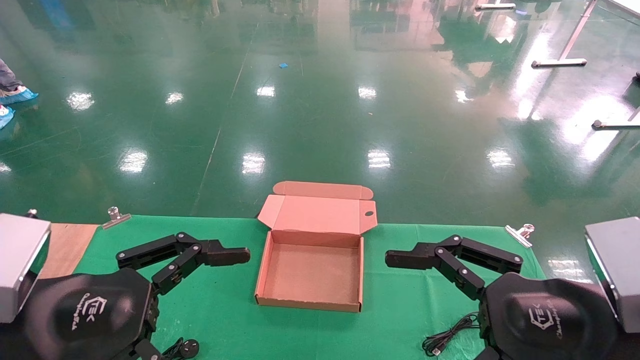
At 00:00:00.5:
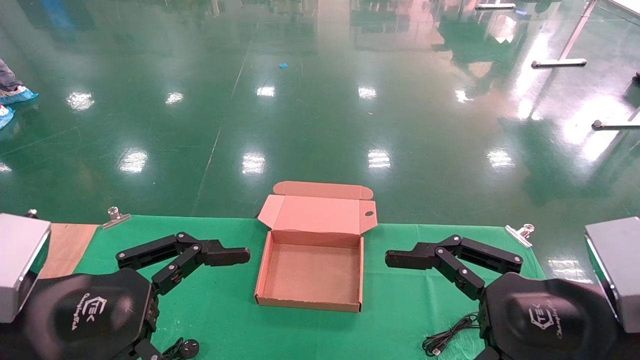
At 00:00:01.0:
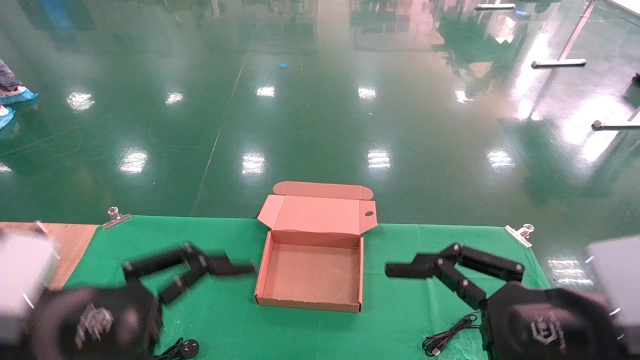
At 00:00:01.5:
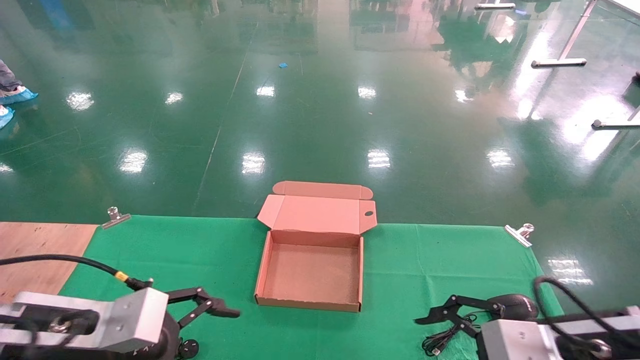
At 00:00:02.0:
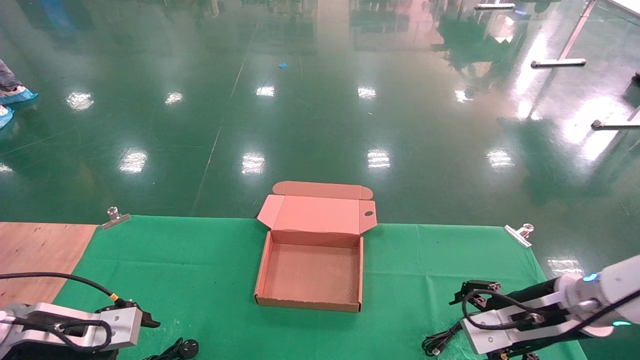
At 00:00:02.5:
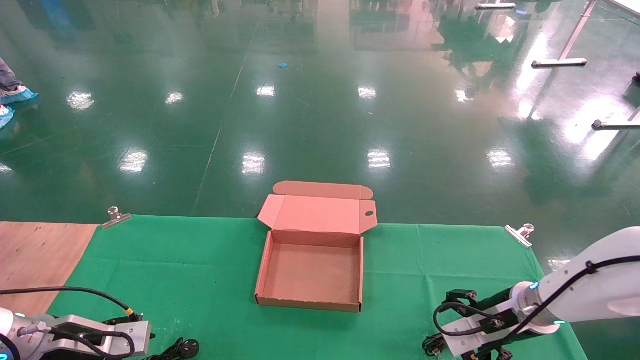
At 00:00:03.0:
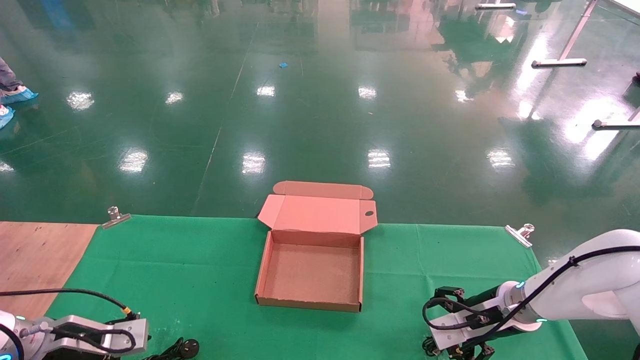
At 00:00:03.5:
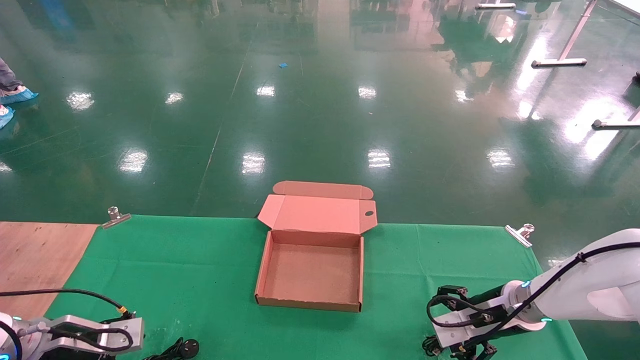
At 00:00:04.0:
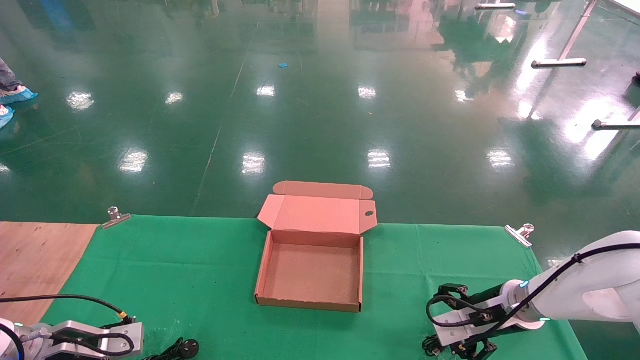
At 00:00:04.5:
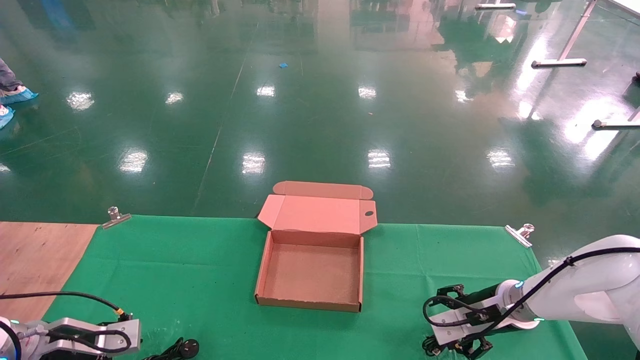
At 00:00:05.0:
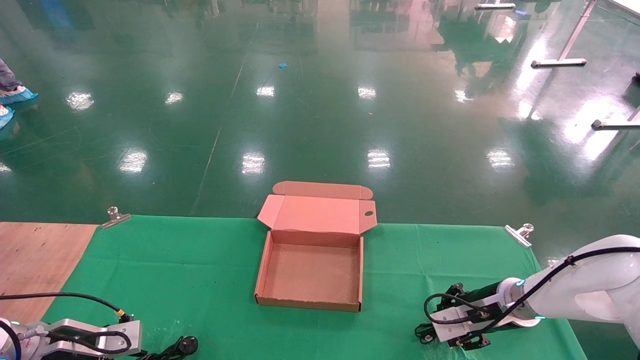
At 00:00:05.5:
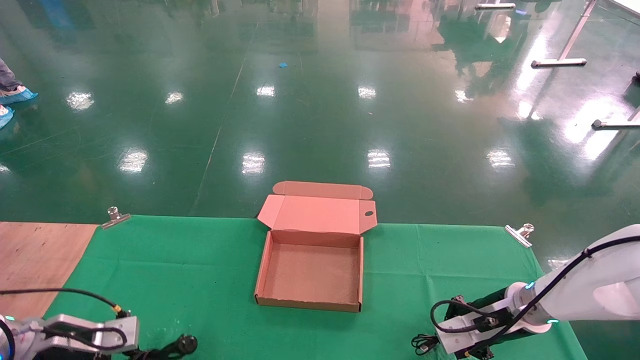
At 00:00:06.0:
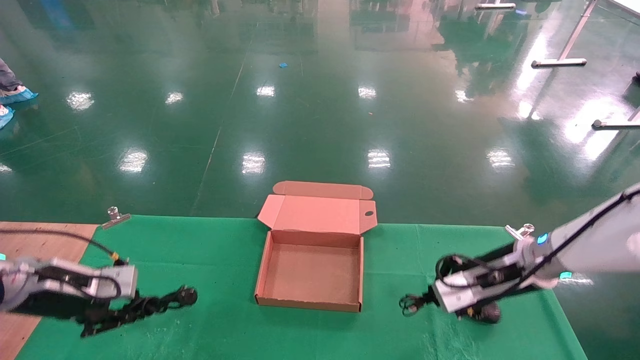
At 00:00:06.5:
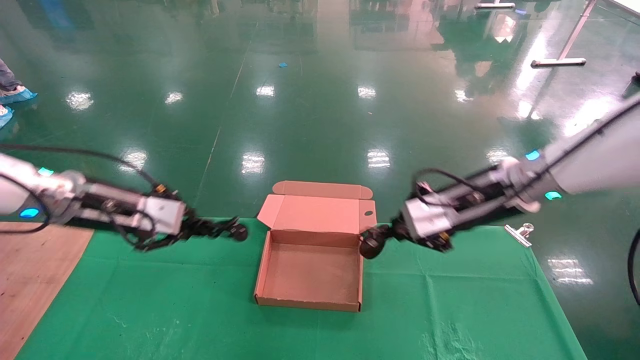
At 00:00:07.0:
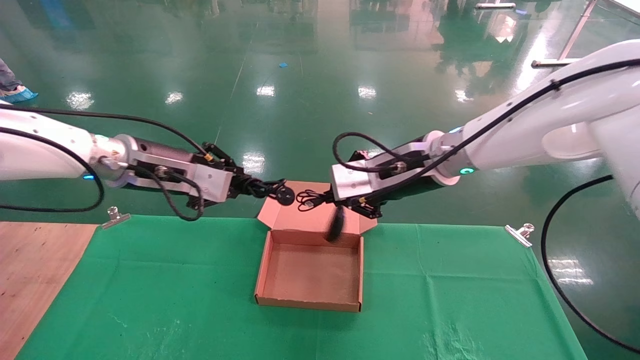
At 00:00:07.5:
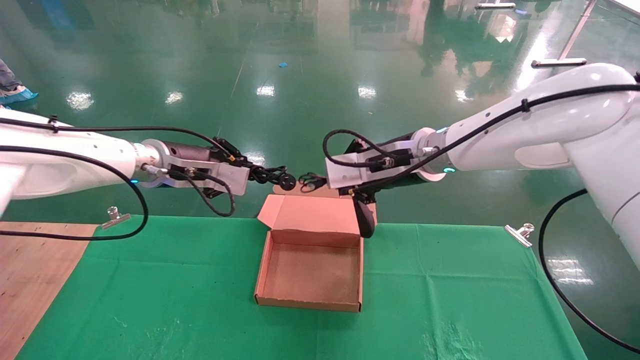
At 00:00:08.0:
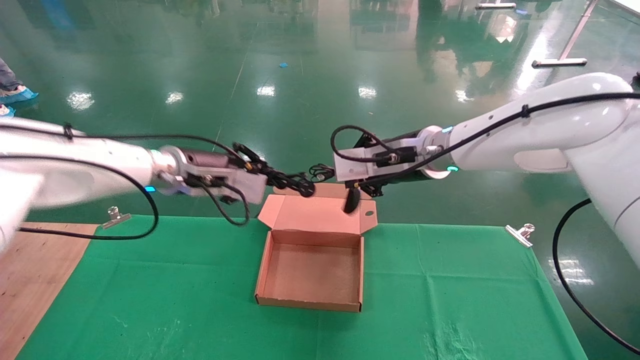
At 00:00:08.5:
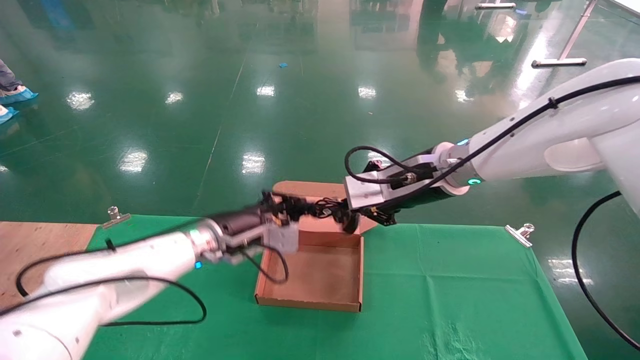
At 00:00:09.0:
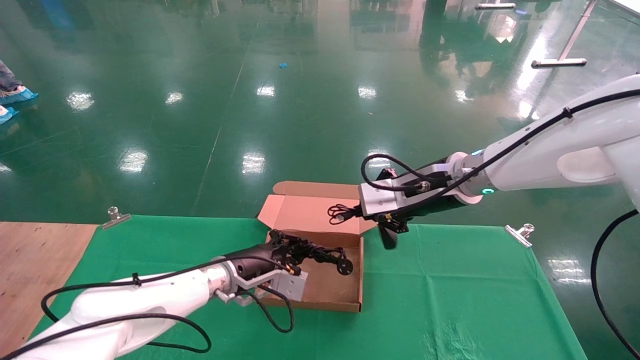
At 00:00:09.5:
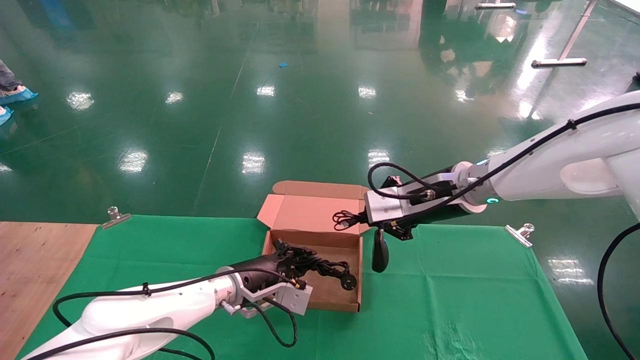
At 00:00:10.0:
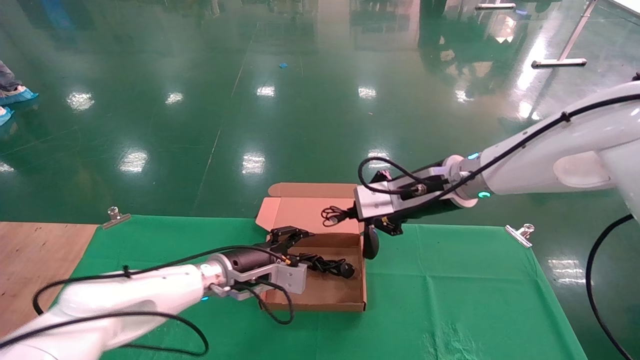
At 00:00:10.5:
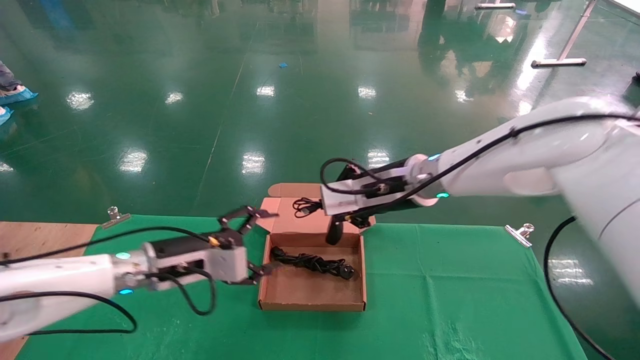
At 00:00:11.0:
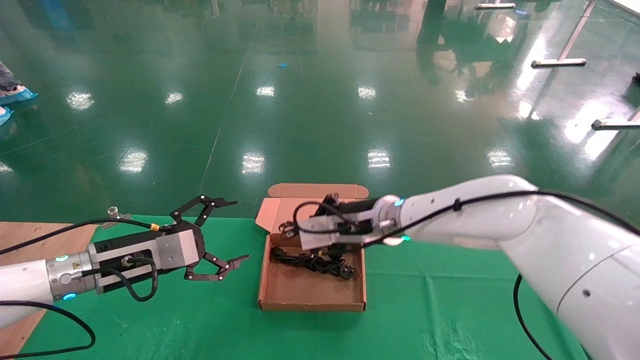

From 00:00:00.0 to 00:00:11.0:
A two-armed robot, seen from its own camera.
Step, from 00:00:01.5 to 00:00:06.0: Grab and lift both the mouse and power cord from the accessory packaging area at the same time.
From 00:00:00.0 to 00:00:02.0: The left gripper heads forward, downward and to the left, covering about 20 cm; the right gripper is displaced forward and downward by approximately 20 cm.
From 00:00:02.0 to 00:00:03.5: The right gripper shifts about 10 cm forward and downward. Meanwhile the left gripper goes some 10 cm downward and forward.
From 00:00:03.5 to 00:00:05.5: The left gripper closes its fingers. The right gripper closes up.
From 00:00:05.5 to 00:00:07.5: The right gripper travels upward and to the left by roughly 30 cm; the left gripper travels upward and to the right by roughly 30 cm.
From 00:00:07.5 to 00:00:09.0: The left gripper travels downward and to the right by approximately 20 cm; the right gripper changes place by approximately 5 cm.
From 00:00:09.0 to 00:00:11.0: The right gripper is displaced to the left and downward by about 10 cm. The left gripper heads to the left and backward, covering about 15 cm, and opens its fingers.

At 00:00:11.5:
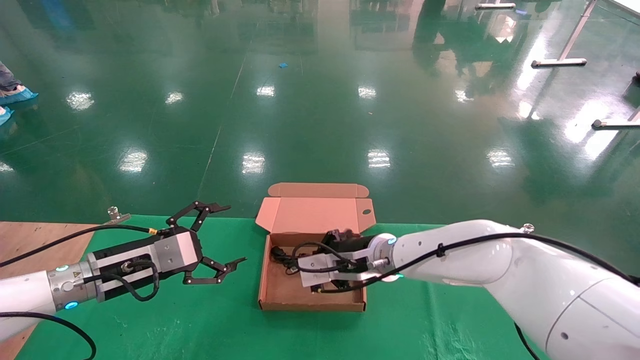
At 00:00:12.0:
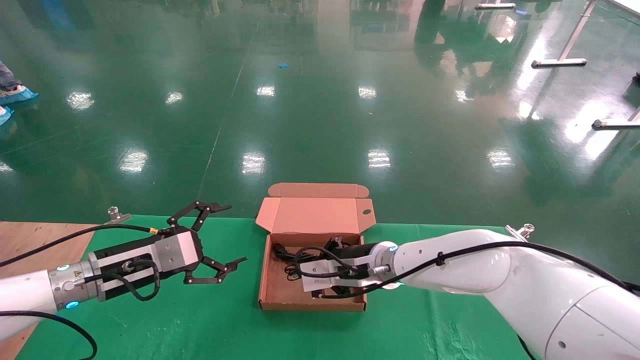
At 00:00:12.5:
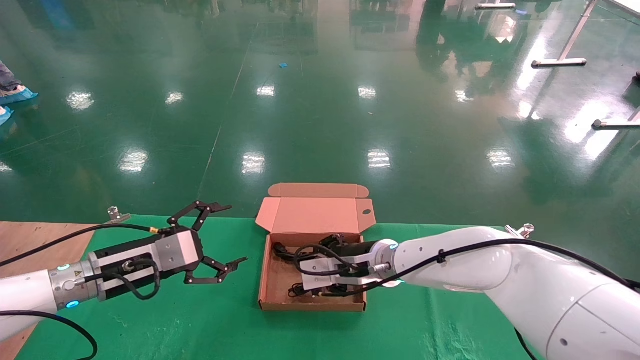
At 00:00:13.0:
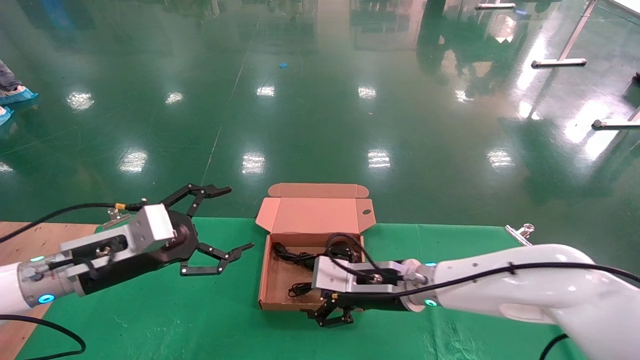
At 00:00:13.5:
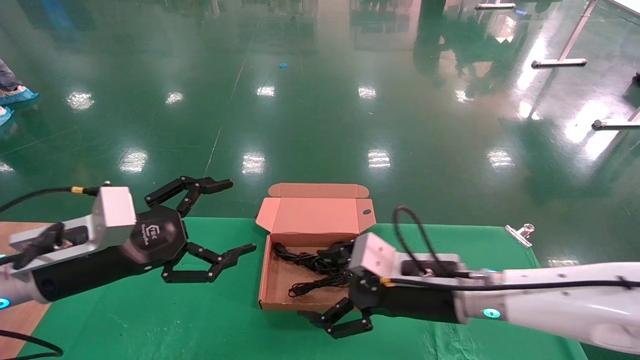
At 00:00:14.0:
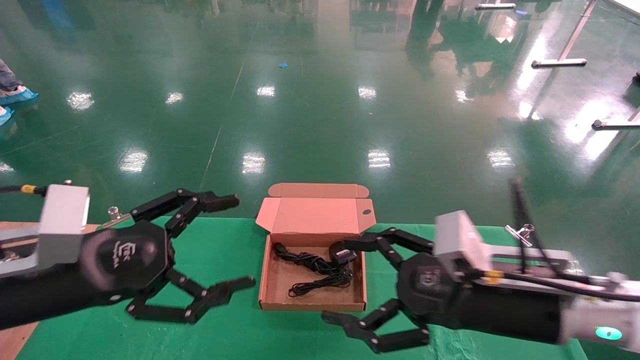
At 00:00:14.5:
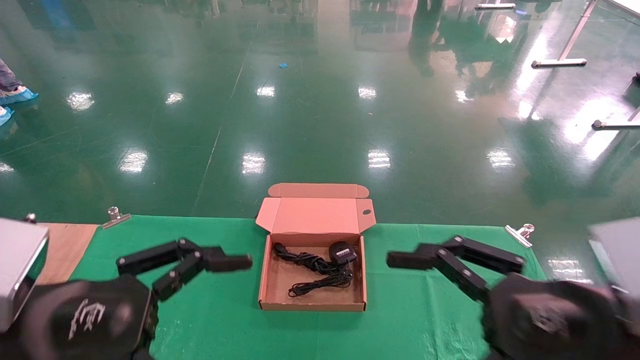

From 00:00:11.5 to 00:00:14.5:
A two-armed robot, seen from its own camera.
From 00:00:11.5 to 00:00:13.0: The right gripper shifts by some 5 cm, and opens. The left gripper moves about 5 cm.
From 00:00:13.0 to 00:00:14.5: The right gripper goes about 30 cm backward, to the right and upward. Meanwhile the left gripper travels backward by approximately 15 cm.

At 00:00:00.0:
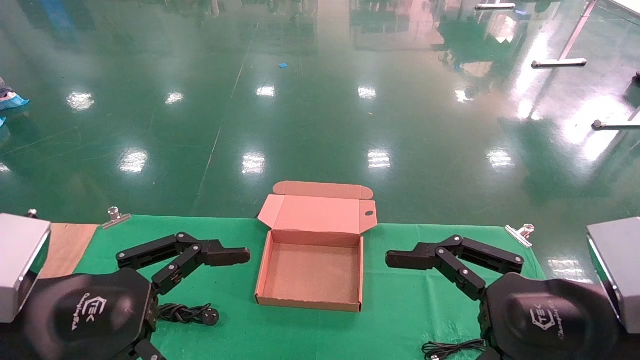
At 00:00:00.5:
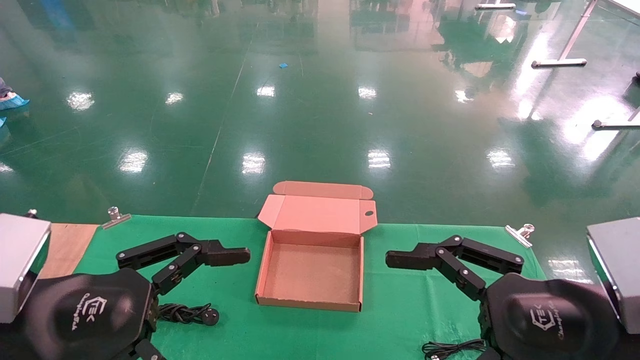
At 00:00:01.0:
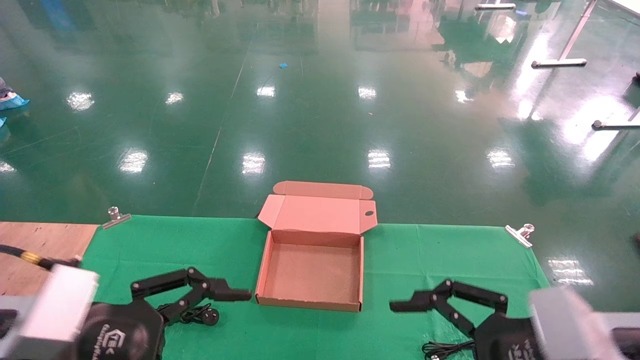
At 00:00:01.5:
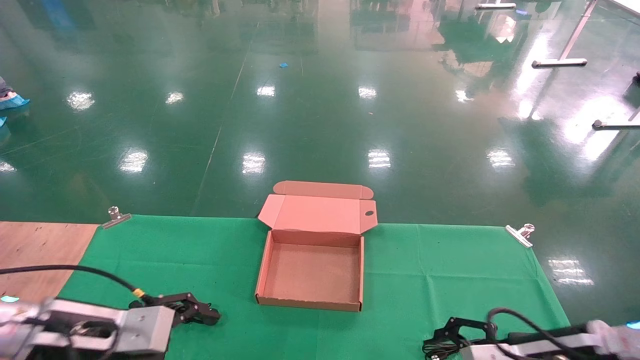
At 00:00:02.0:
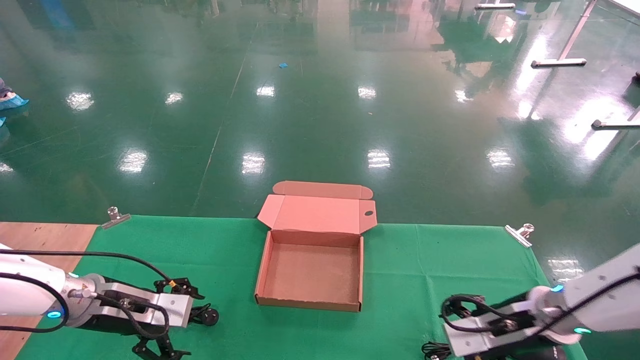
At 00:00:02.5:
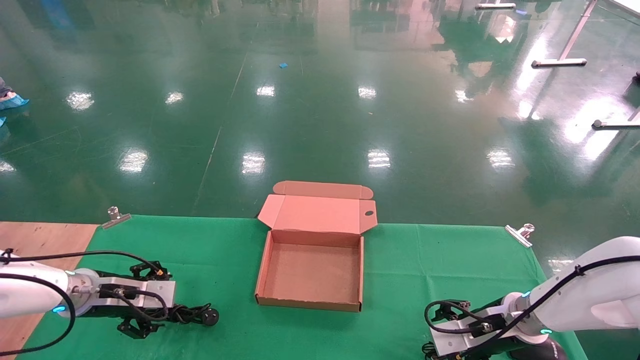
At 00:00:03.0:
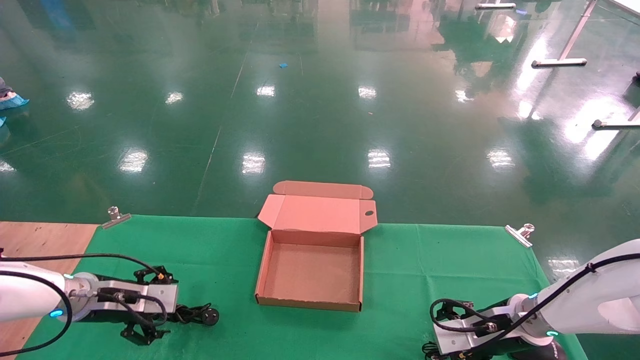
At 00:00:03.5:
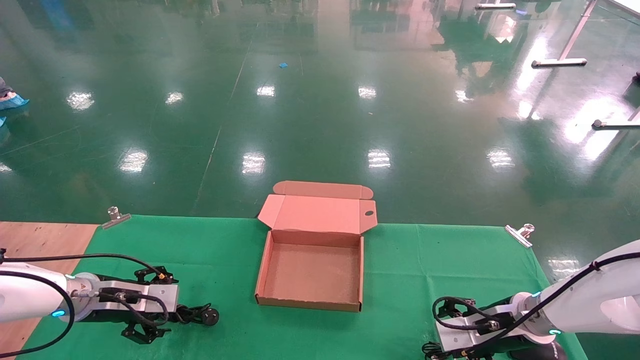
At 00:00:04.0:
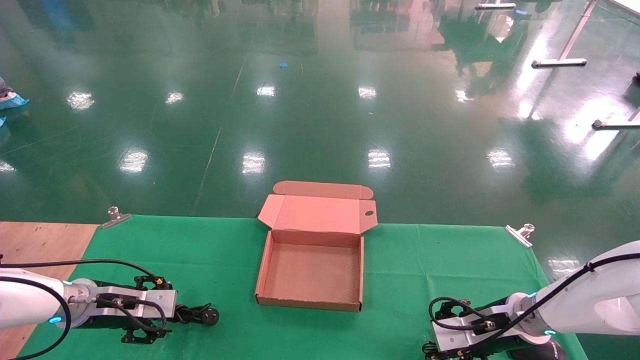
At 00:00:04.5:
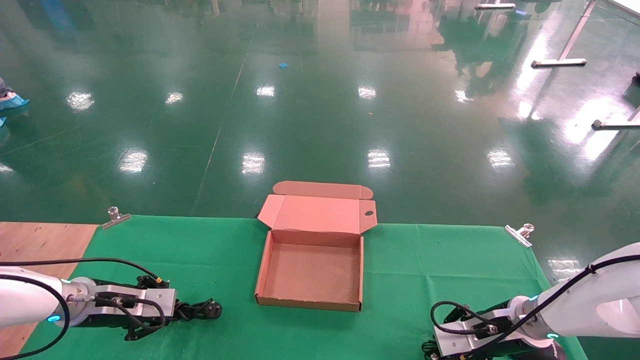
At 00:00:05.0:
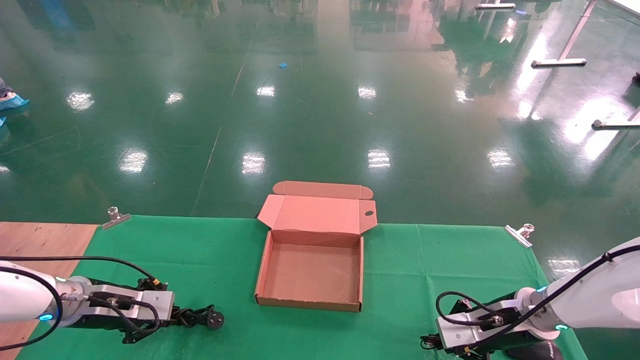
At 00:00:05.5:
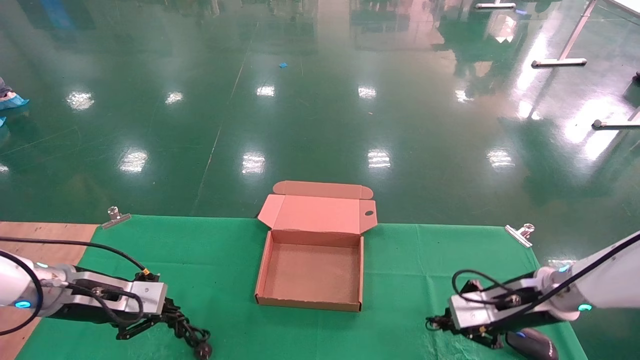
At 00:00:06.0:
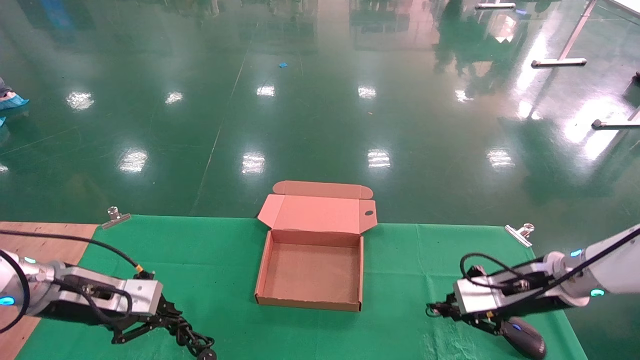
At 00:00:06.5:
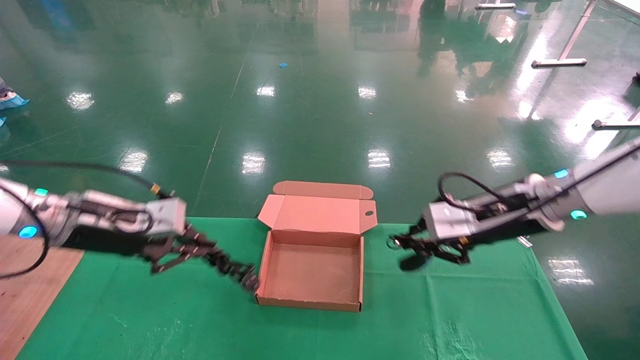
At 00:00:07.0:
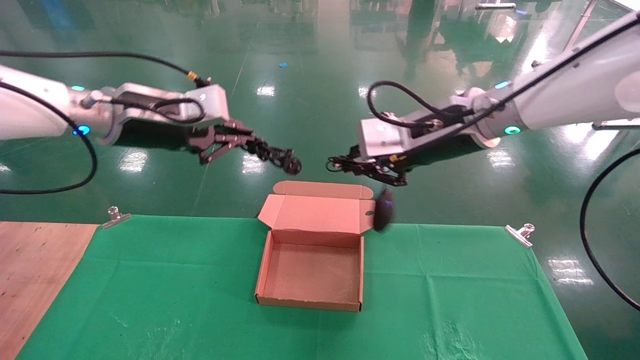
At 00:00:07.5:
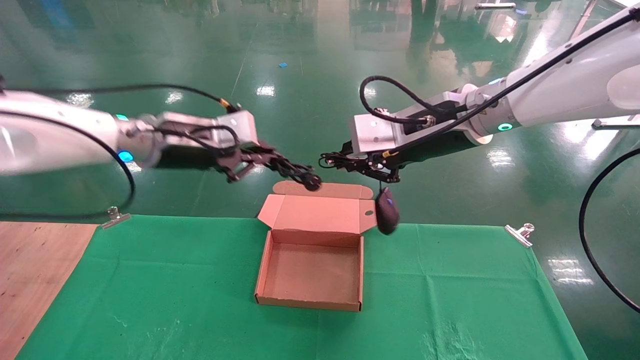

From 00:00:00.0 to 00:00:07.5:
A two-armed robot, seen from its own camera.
Step, from 00:00:02.0 to 00:00:07.0: Grab and lift both the mouse and power cord from the accessory packaging area at the same time.
From 00:00:00.0 to 00:00:02.0: The grippers both shift forward and downward by roughly 25 cm.
From 00:00:02.0 to 00:00:04.0: The right gripper changes place by some 5 cm, while the left gripper shifts by about 5 cm.
From 00:00:04.0 to 00:00:05.5: The right gripper is displaced upward by about 5 cm, and closes. The left gripper shifts by roughly 5 cm, and closes.
From 00:00:05.5 to 00:00:07.5: The left gripper is displaced upward and to the right by approximately 25 cm; the right gripper goes some 30 cm upward and to the left.
